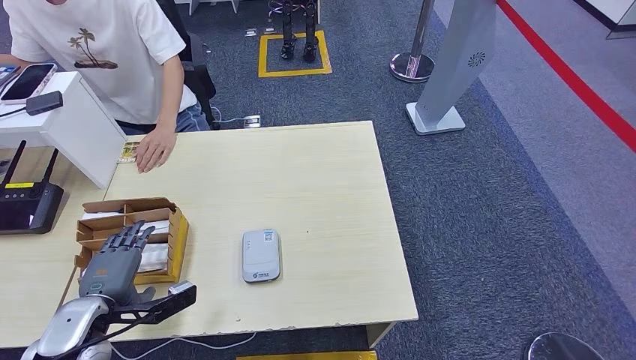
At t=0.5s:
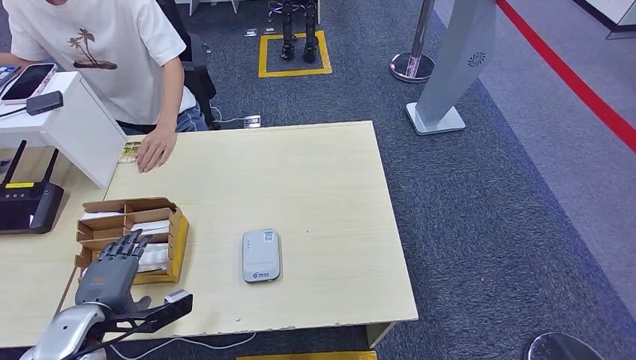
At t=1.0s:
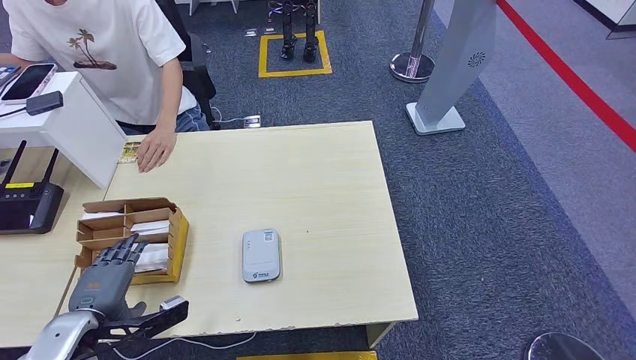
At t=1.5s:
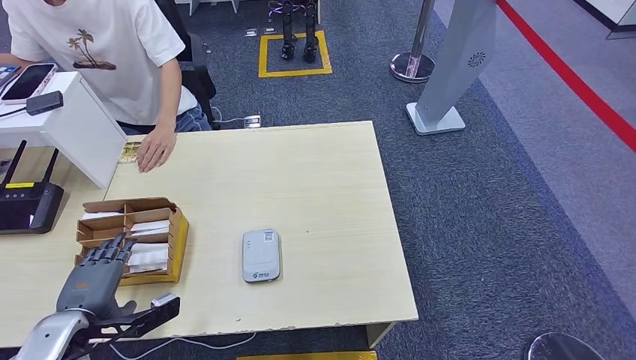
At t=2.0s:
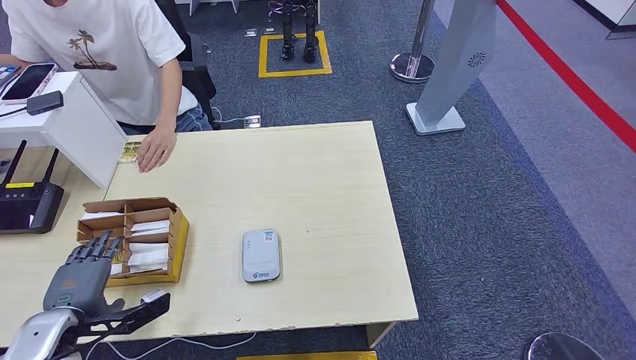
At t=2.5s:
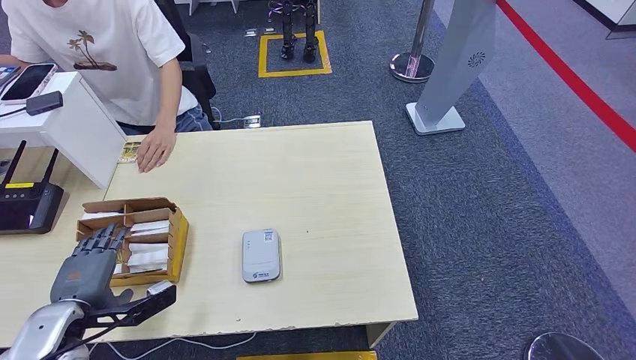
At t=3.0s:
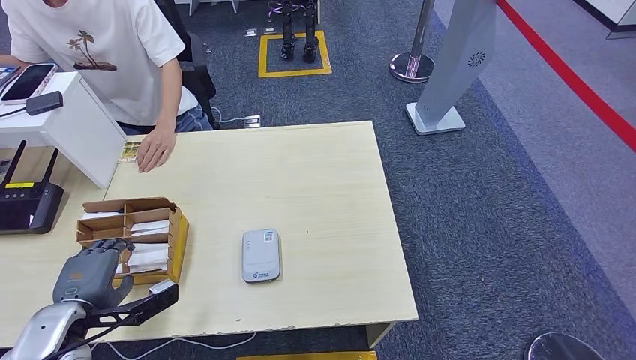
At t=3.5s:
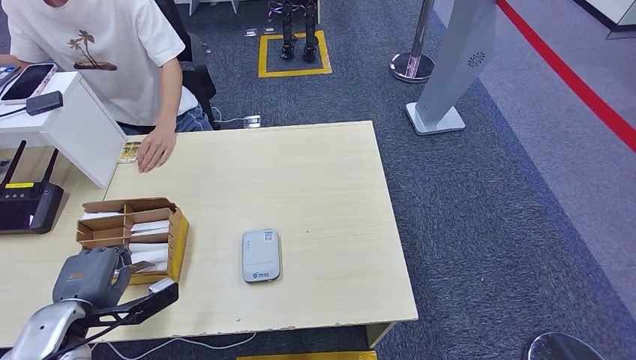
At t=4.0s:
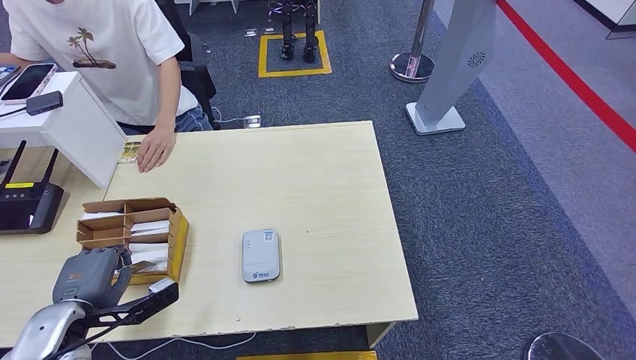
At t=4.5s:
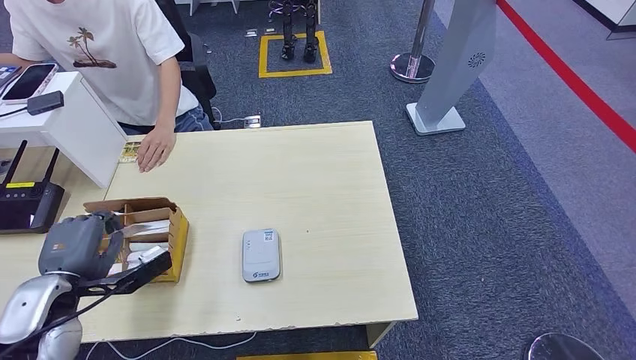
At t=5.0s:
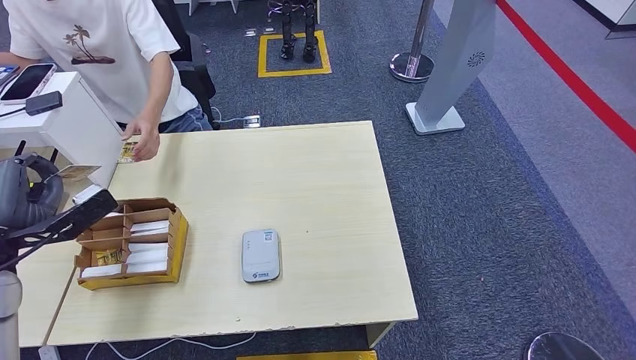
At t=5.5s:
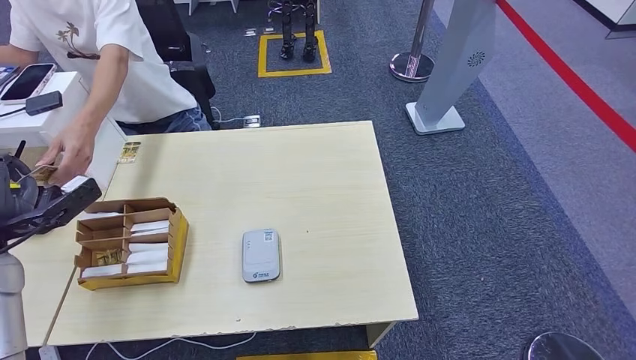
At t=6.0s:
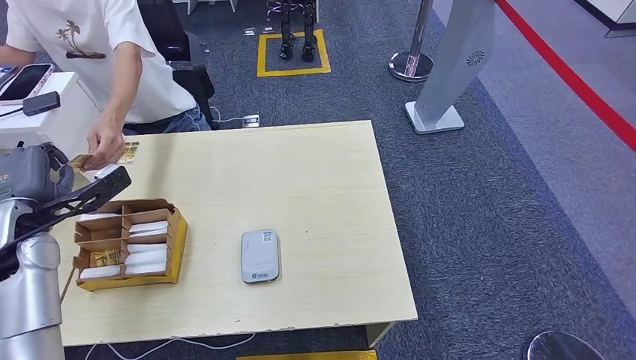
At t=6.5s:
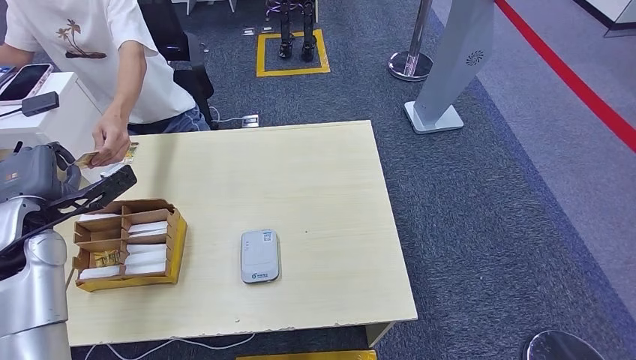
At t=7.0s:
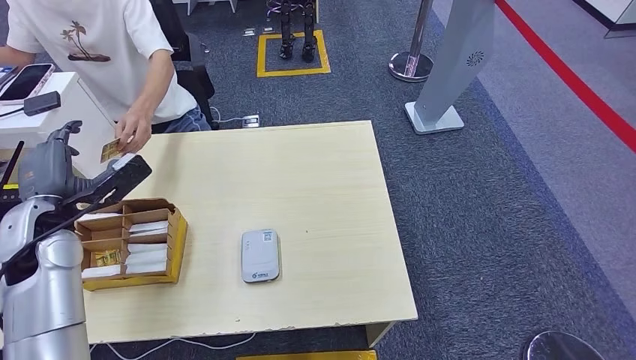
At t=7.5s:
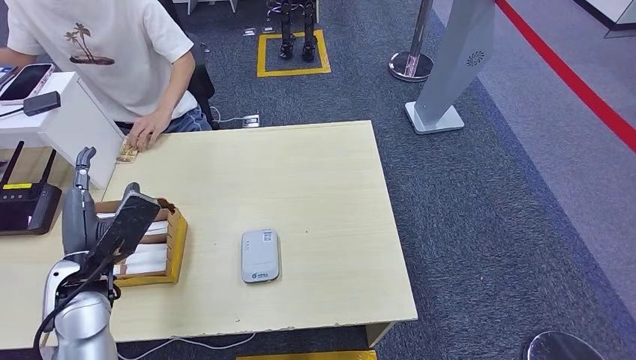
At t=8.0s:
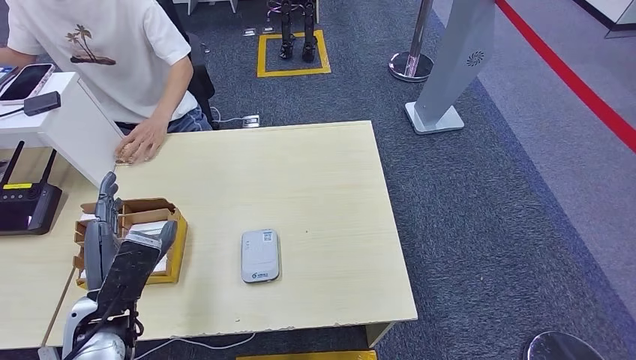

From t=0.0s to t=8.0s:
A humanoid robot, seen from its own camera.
Step, from t=0.0s to t=4.5s: Pick up the room key from the key card box.
Step, from t=5.0s to t=8.0s: Hand the room key to the person.
From t=0.0s to t=4.0s: The hands make only small movements.
From t=4.0s to t=6.0s: The left hand goes roughly 15 cm forward and upward.
From t=6.0s to t=8.0s: The left hand goes approximately 20 cm to the right, backward and downward.
